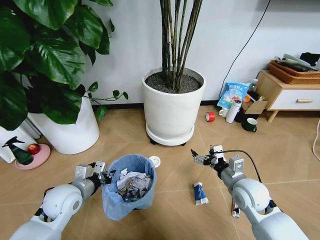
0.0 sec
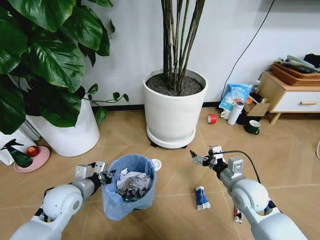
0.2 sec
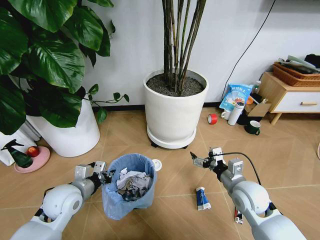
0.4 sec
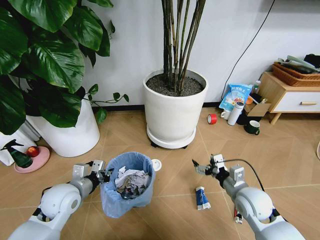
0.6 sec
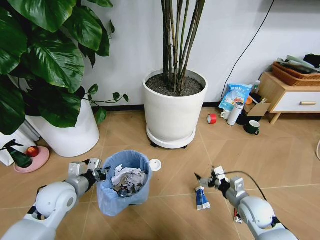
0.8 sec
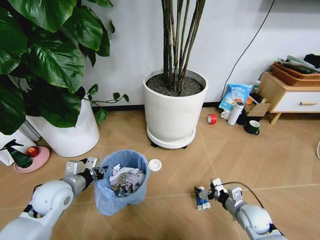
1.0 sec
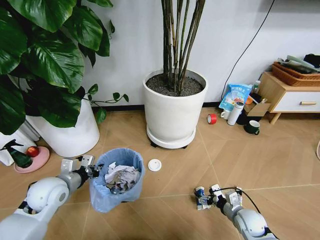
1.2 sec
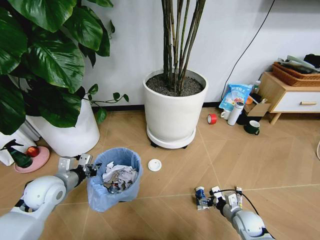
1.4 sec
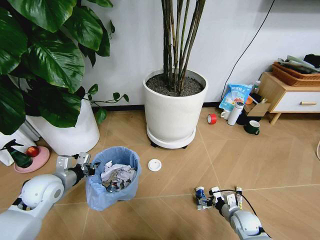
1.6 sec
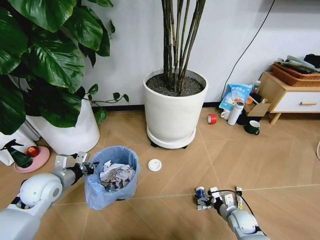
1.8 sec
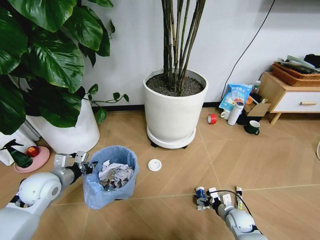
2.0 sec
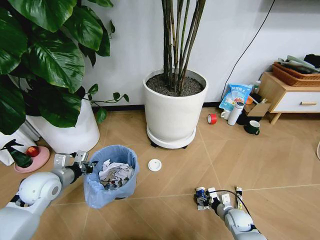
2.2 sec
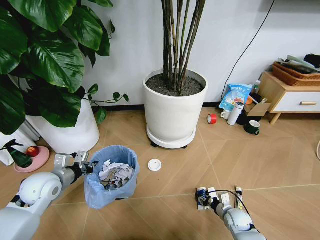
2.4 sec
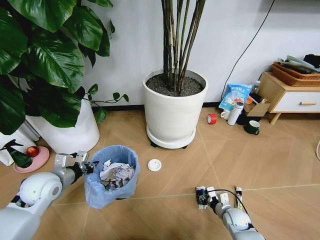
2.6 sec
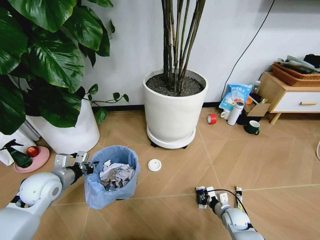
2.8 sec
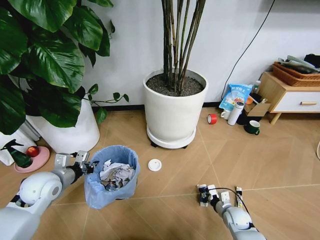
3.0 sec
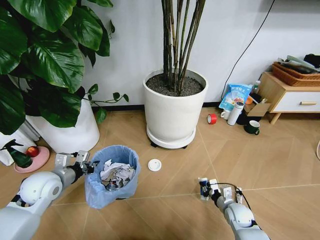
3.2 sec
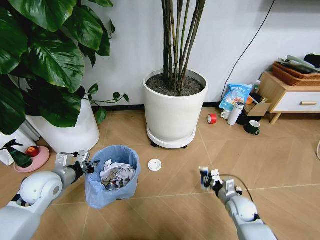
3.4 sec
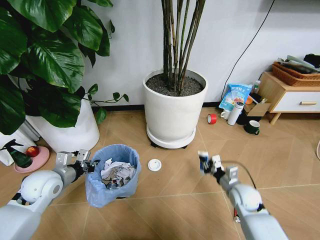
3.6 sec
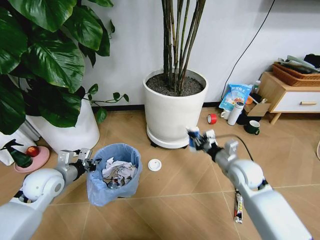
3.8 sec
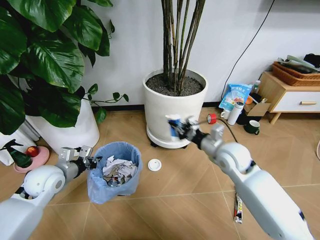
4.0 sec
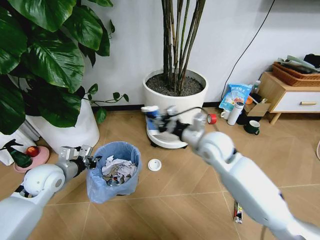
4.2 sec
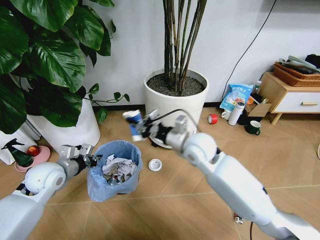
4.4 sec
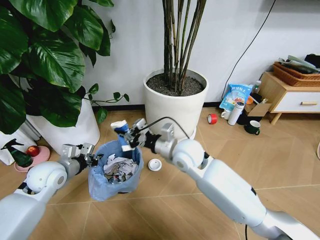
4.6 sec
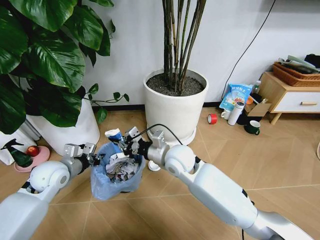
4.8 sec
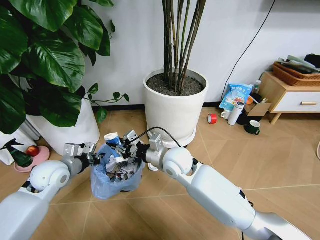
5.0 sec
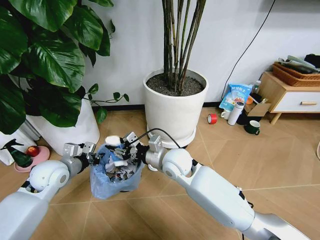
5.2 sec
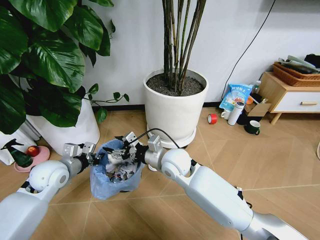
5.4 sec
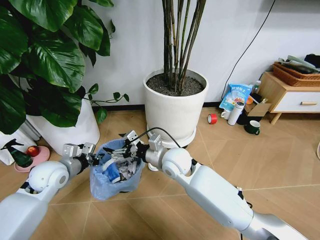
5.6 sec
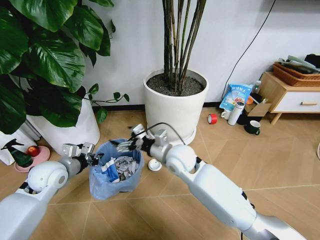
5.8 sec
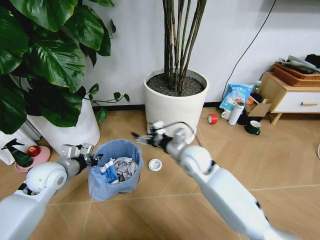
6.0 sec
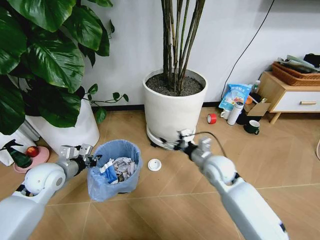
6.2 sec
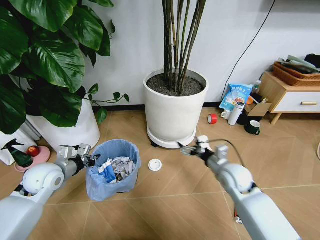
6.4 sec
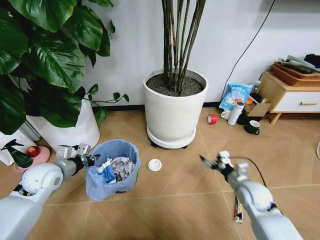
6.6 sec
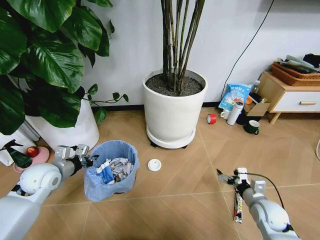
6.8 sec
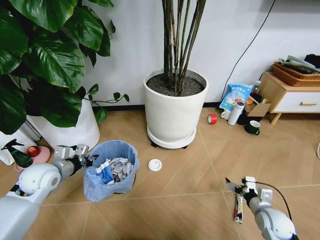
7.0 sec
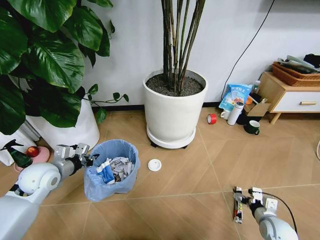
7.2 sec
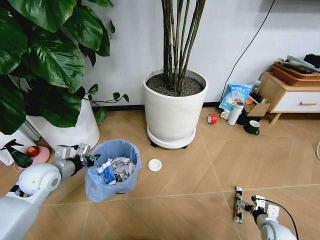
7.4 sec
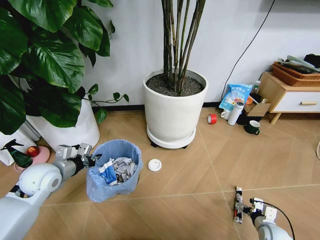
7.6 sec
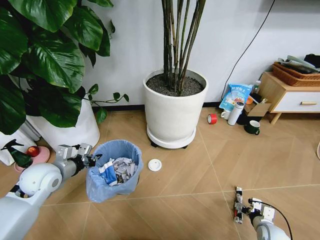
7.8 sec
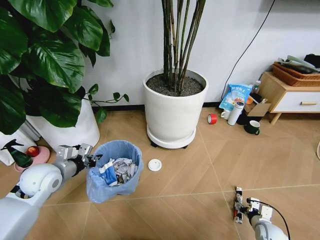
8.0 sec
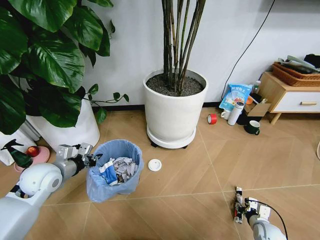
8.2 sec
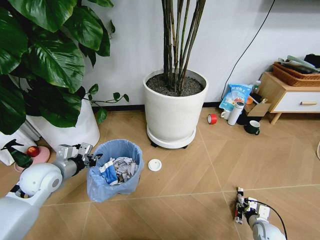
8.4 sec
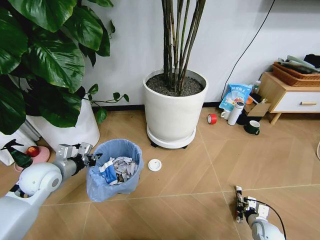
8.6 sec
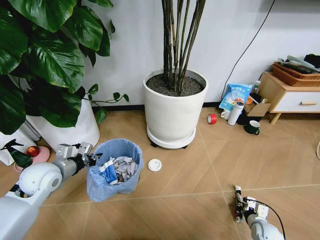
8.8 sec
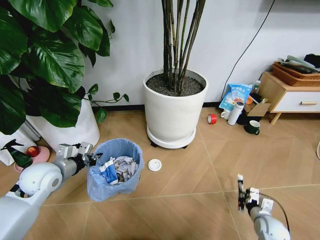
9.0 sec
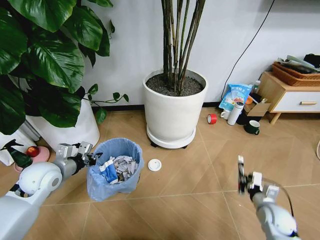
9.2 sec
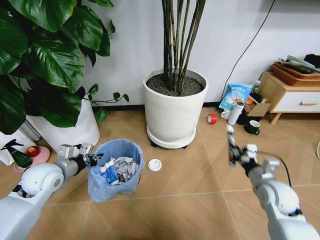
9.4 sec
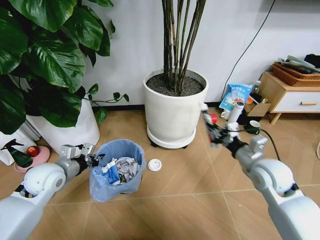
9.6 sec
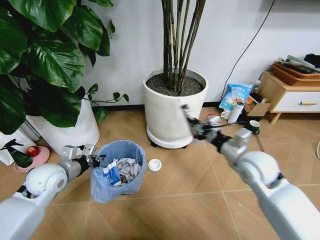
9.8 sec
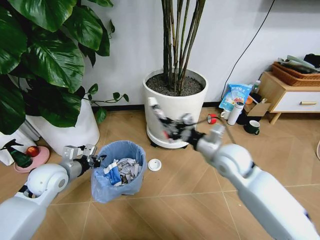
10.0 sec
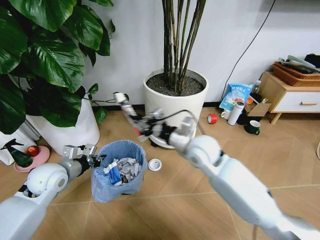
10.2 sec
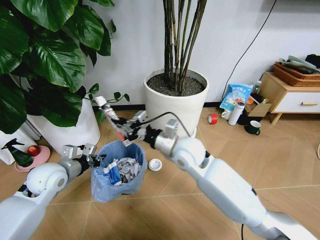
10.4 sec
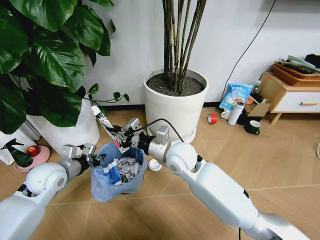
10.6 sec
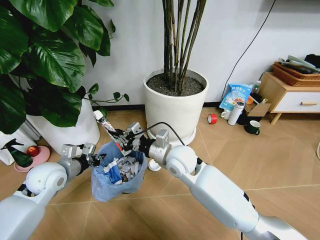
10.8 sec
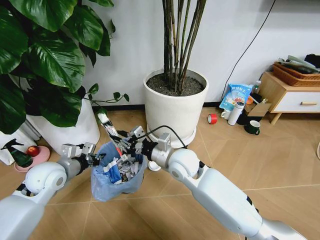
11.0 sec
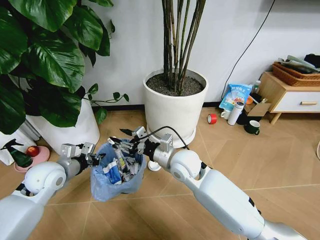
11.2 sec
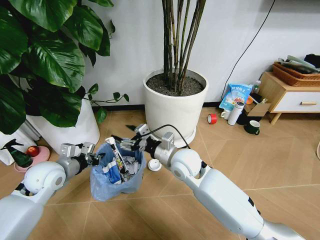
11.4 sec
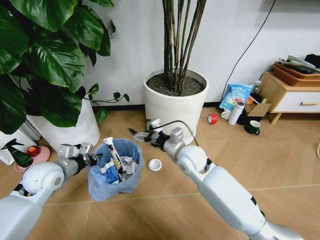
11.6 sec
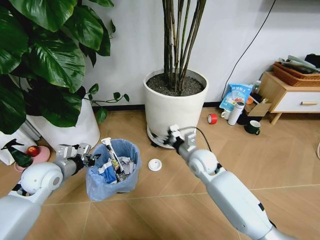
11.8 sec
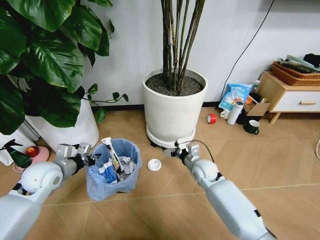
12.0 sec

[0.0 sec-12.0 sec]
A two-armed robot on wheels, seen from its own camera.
Task of the whole recording: Pick up the trash bin and place the garbage on the floor into it.
0.0 sec to 1.6 sec: The left gripper moves to the left, approximately 5 cm. The right gripper heads downward, covering roughly 20 cm.
1.6 sec to 3.0 sec: The right gripper closes its fingers.
3.0 sec to 4.4 sec: The right gripper travels upward and to the left by approximately 40 cm.
4.4 sec to 6.0 sec: The right gripper goes about 5 cm downward, and opens.
6.0 sec to 7.6 sec: The right gripper is displaced to the right, downward and backward by some 40 cm.
7.6 sec to 9.0 sec: The right gripper closes.
9.0 sec to 10.4 sec: The right gripper shifts about 50 cm to the left, upward and forward.
10.4 sec to 12.0 sec: The right gripper is displaced downward and to the right by approximately 20 cm, and opens its fingers.

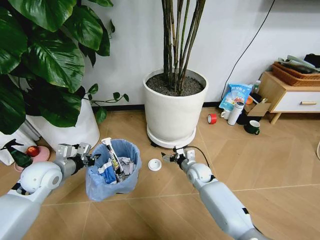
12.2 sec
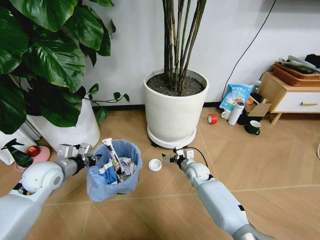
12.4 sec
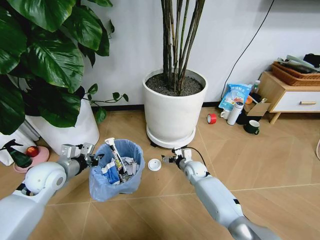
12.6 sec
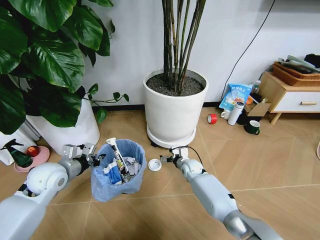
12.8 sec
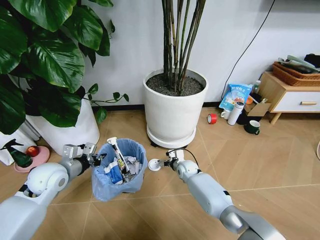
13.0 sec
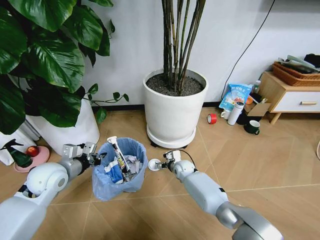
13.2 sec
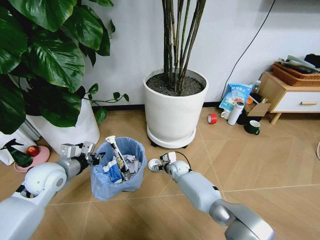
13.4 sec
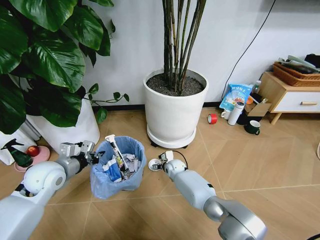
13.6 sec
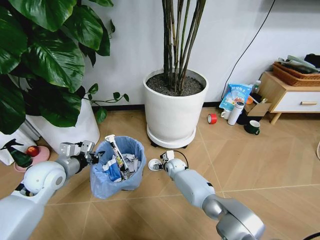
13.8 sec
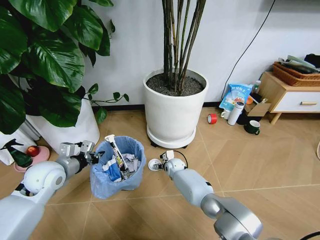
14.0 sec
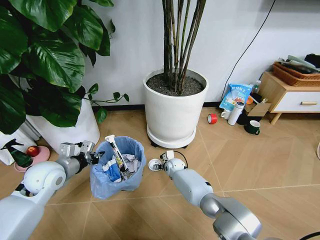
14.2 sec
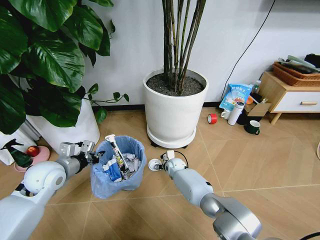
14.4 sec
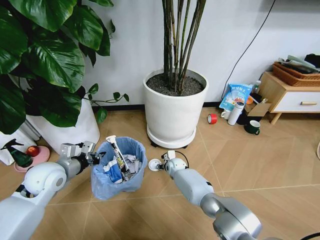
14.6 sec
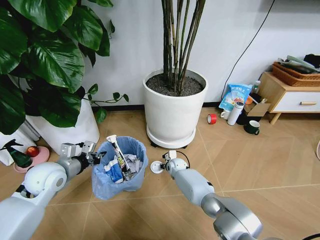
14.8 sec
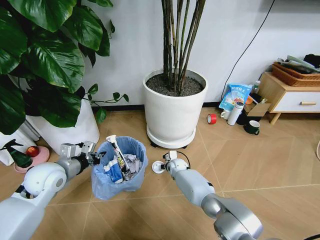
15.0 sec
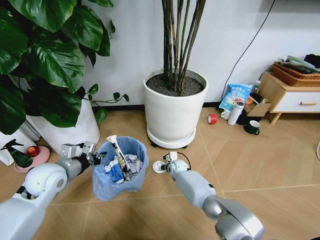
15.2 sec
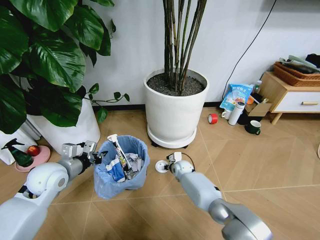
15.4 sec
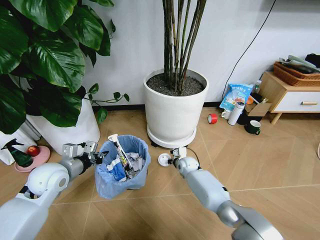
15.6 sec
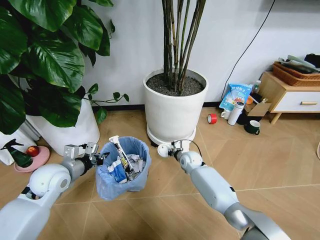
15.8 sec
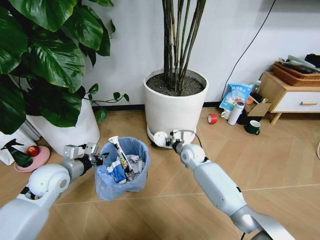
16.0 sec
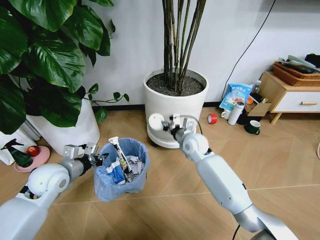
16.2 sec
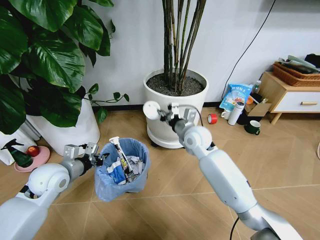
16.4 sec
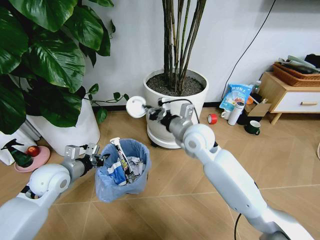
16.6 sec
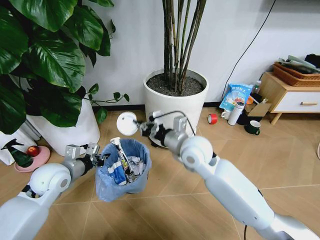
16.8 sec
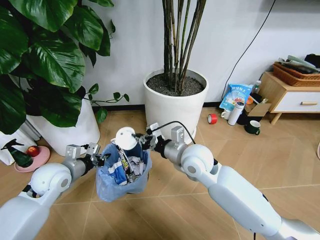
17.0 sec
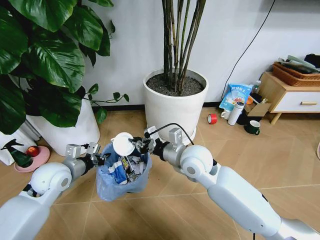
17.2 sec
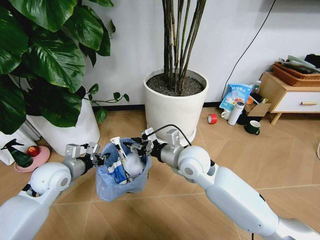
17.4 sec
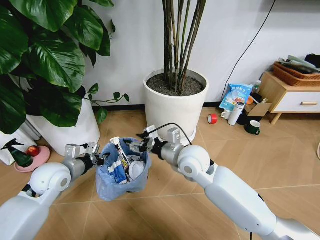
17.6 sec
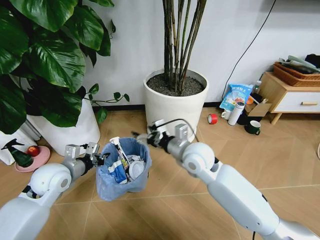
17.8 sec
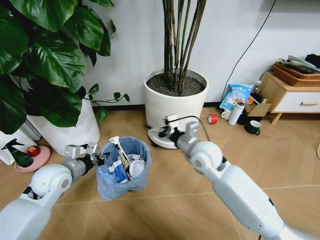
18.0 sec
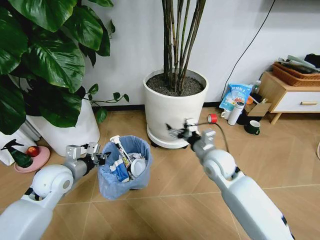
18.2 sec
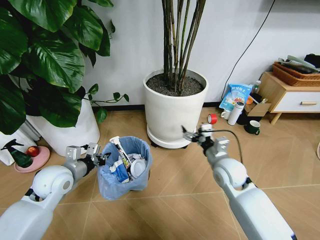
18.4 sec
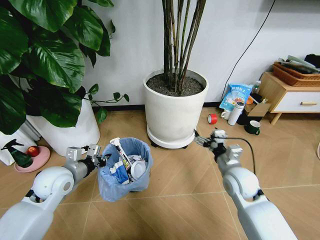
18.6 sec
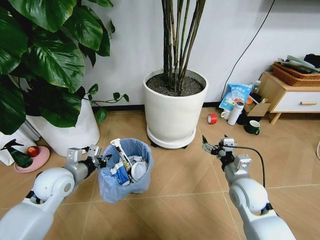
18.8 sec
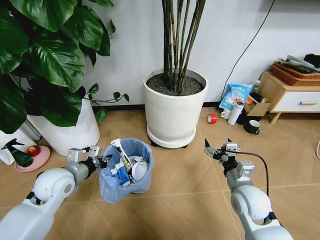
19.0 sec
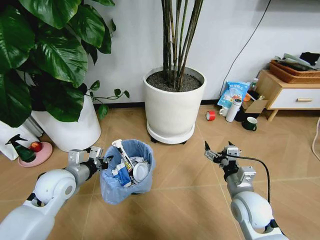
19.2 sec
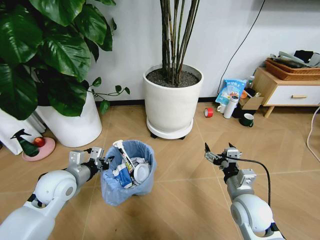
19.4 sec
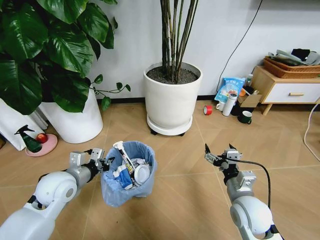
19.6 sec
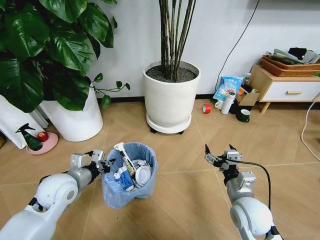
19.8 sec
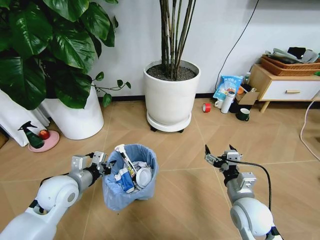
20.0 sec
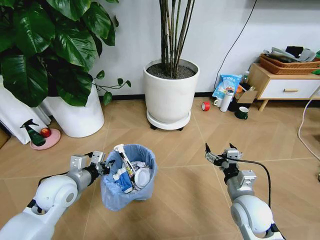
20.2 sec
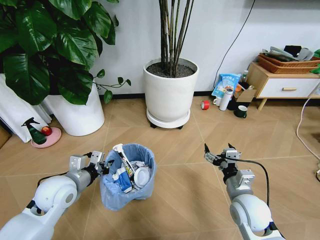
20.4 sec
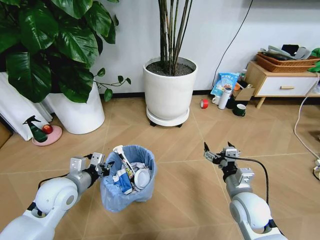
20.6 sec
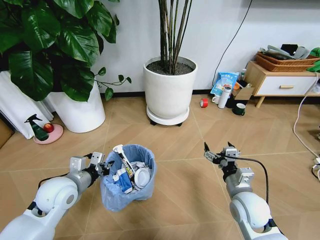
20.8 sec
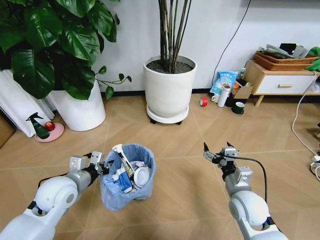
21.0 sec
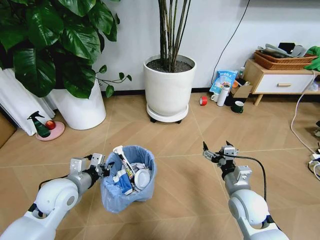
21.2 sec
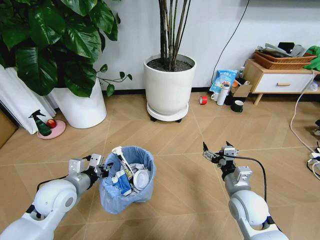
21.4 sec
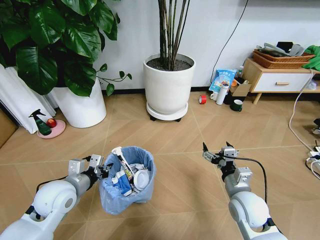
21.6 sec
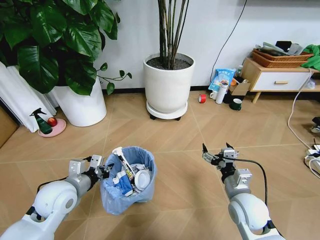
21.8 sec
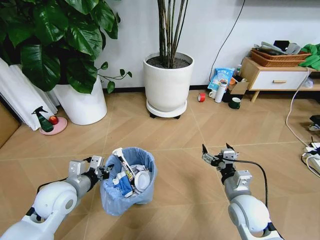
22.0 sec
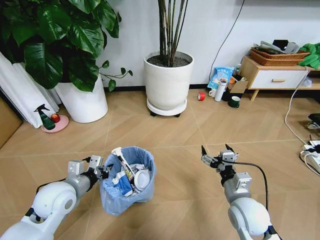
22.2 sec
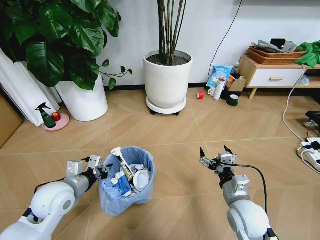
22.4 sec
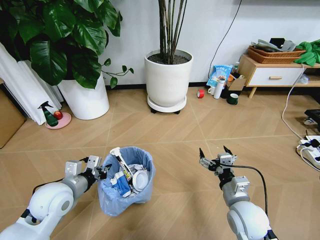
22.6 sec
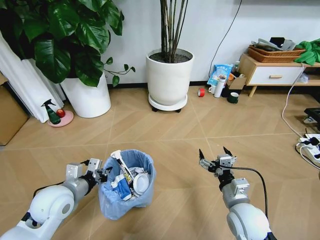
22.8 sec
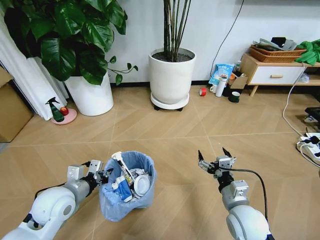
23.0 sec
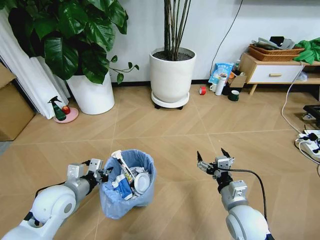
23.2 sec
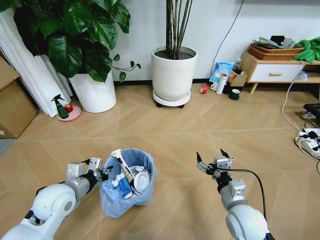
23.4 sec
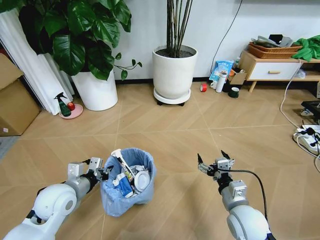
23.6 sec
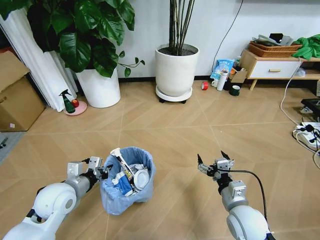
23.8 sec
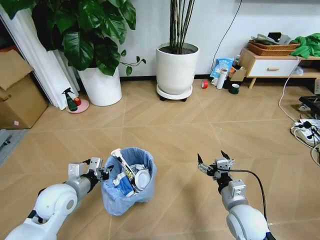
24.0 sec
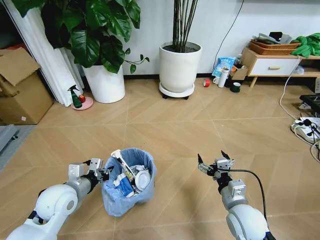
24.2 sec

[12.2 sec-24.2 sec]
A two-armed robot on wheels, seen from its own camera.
Task of the whole recording: Pick up the trash bin and place the garbage on the floor into it.
12.2 sec to 13.8 sec: The right gripper is displaced to the left, forward and downward by approximately 15 cm.
13.8 sec to 15.2 sec: The right gripper closes.
15.2 sec to 16.6 sec: The right gripper is displaced upward by some 30 cm.
16.6 sec to 18.2 sec: The right gripper heads downward, covering roughly 5 cm, and opens.
18.2 sec to 19.8 sec: The right gripper travels backward, to the right and downward by about 20 cm.
